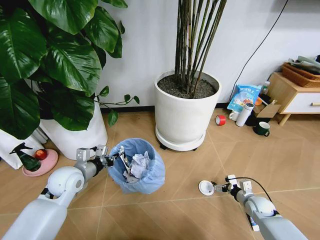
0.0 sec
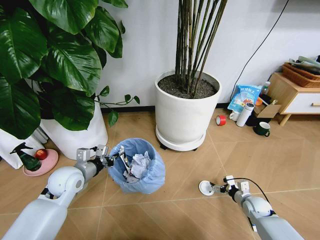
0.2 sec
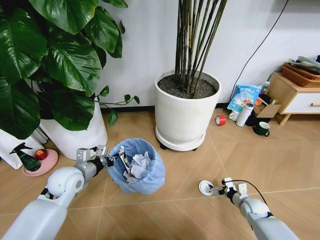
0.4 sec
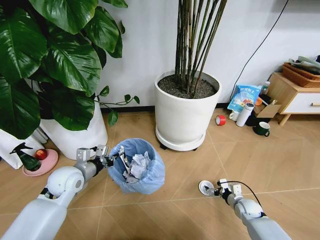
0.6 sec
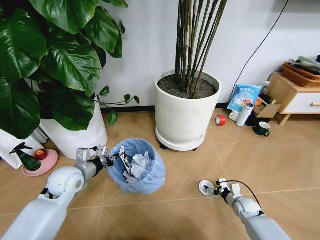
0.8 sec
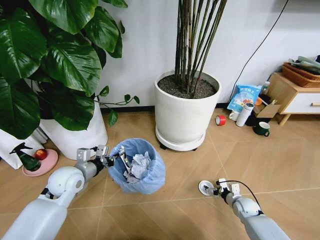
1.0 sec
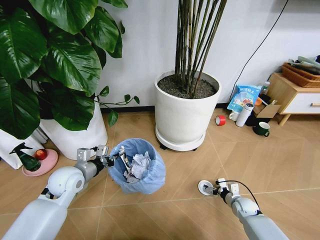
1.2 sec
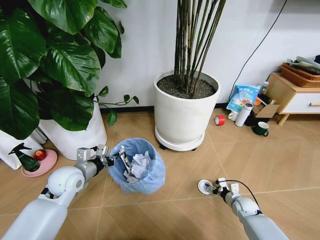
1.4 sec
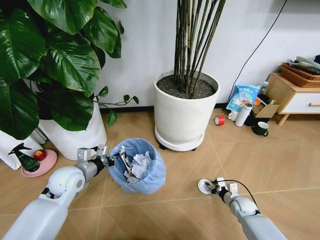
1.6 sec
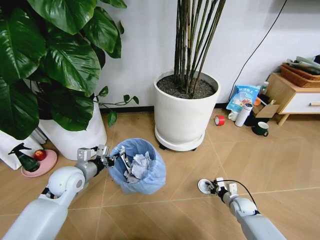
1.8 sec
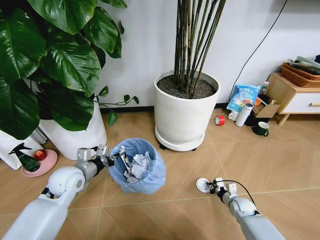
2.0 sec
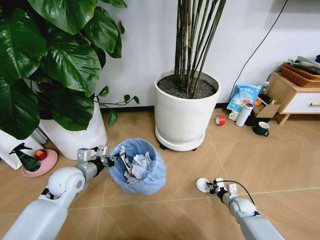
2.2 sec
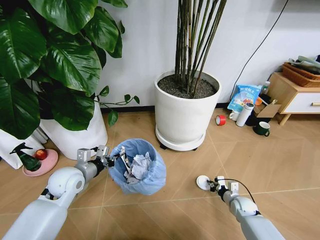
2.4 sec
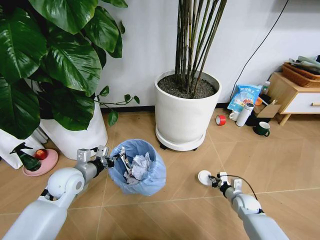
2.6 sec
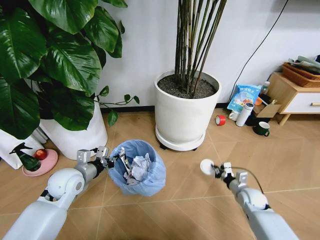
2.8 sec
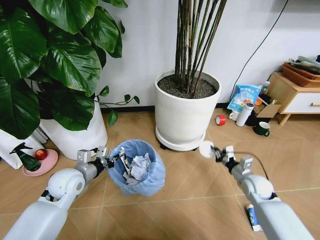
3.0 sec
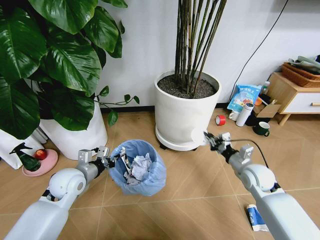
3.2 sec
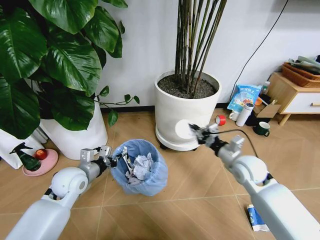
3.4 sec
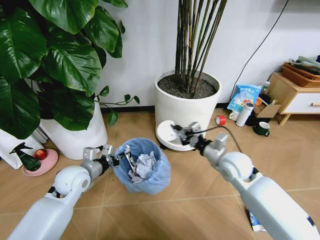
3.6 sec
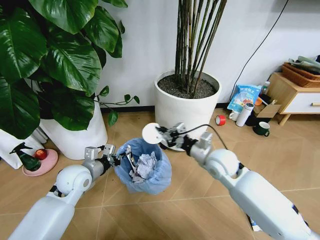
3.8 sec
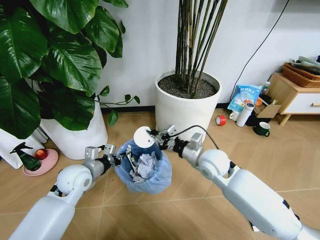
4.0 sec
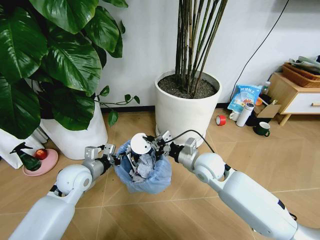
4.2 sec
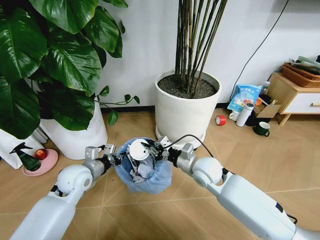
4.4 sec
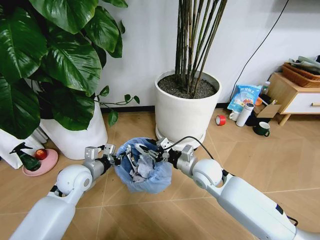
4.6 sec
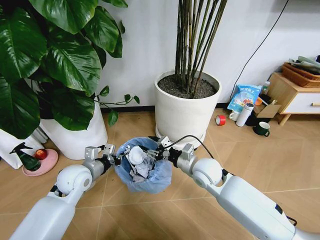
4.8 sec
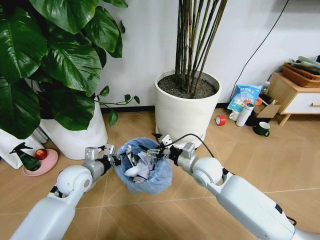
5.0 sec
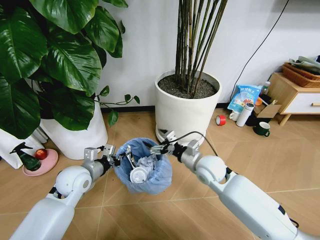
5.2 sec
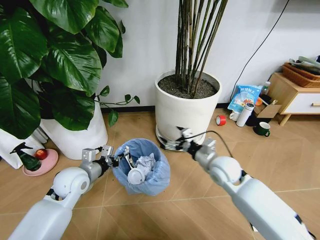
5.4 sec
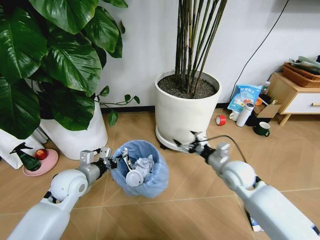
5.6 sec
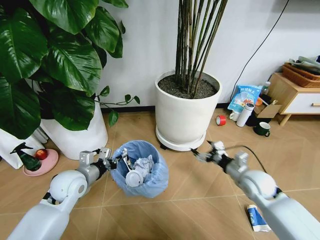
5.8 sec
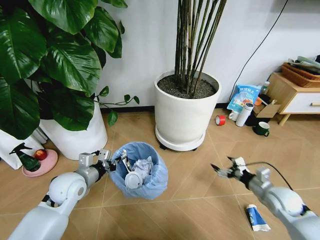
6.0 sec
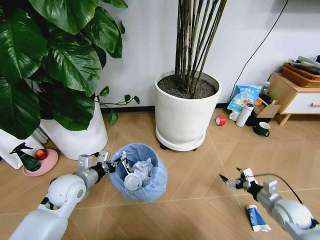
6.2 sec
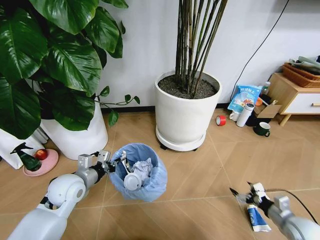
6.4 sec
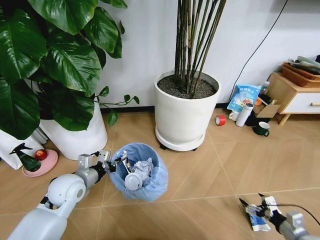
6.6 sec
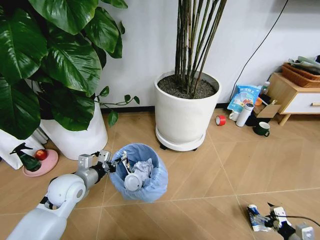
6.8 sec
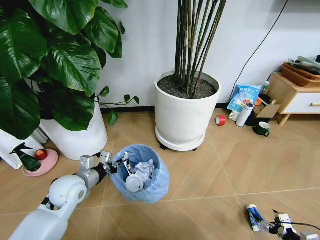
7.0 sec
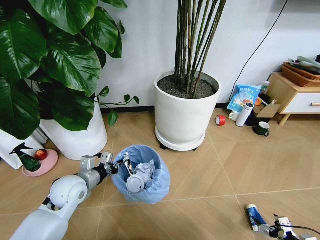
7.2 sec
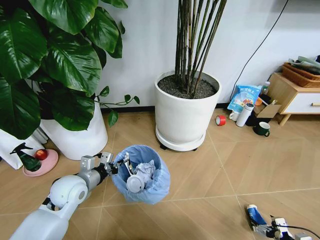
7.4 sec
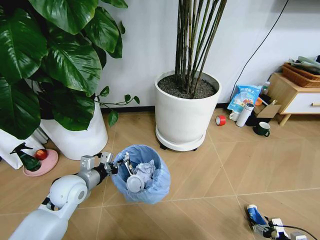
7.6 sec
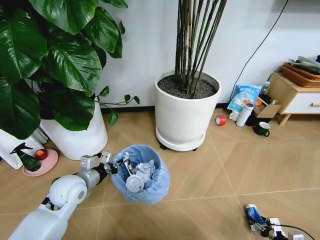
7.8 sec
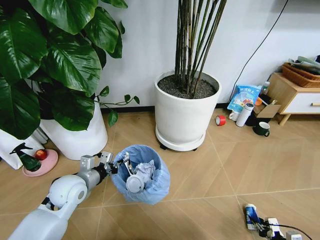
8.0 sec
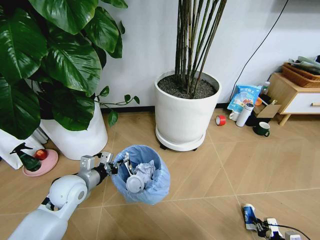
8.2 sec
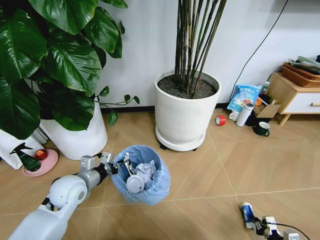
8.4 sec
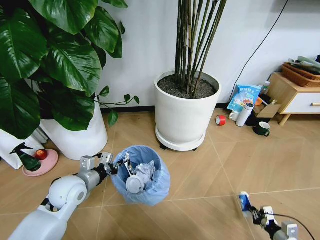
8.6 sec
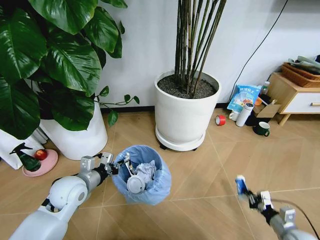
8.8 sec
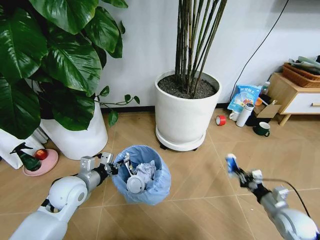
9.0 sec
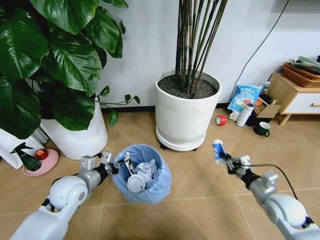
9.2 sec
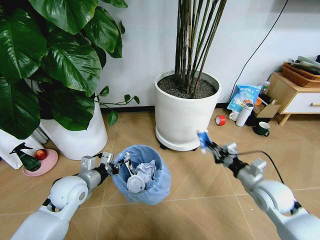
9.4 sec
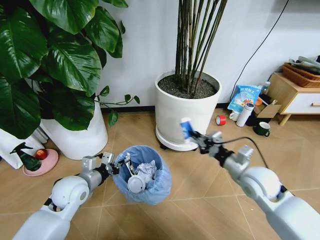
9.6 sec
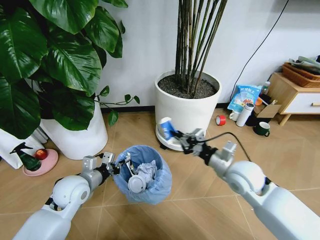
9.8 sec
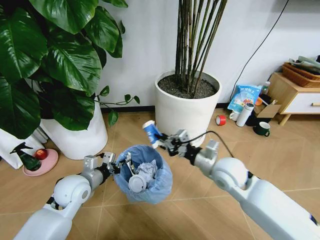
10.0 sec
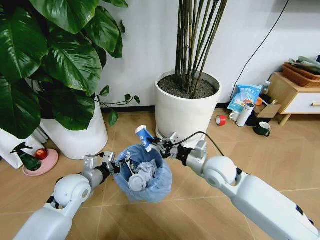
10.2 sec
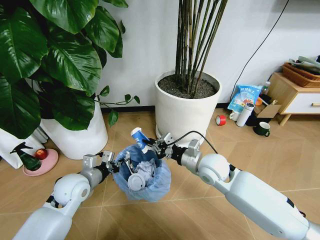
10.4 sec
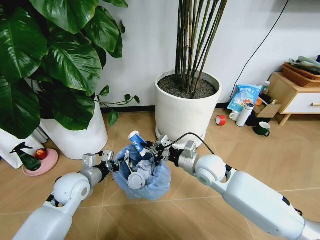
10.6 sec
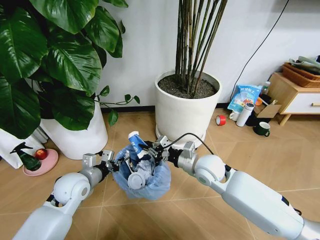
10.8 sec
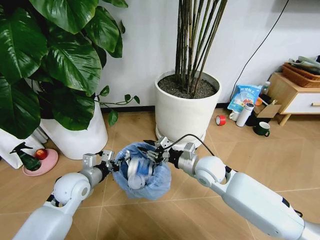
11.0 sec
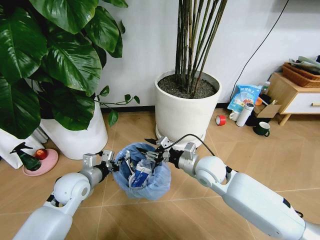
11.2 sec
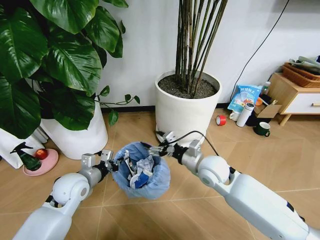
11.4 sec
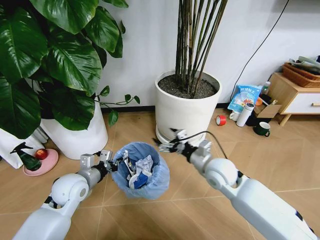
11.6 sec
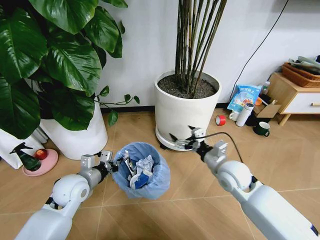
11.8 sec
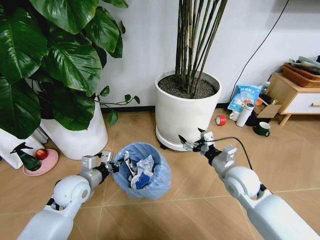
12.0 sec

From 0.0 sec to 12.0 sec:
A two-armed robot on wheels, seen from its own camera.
Task of the whole recording: Pick up the trash bin and place the garbage on the floor into it.
From 0.0 sec to 1.6 sec: The right gripper is displaced downward by roughly 5 cm, and closes.
From 1.6 sec to 3.0 sec: The right gripper goes some 15 cm upward, and closes its fingers.
From 3.0 sec to 4.4 sec: The right gripper moves to the left and upward, roughly 25 cm.
From 4.4 sec to 6.0 sec: The right gripper goes approximately 25 cm to the right, and opens up.
From 6.0 sec to 7.6 sec: The right gripper goes approximately 25 cm backward, downward and to the right.
From 7.6 sec to 9.0 sec: The right gripper moves forward, upward and to the left, roughly 20 cm, and closes its fingers.
From 9.0 sec to 10.4 sec: The right gripper heads to the left, forward and upward, covering approximately 35 cm.
From 10.4 sec to 12.0 sec: The right gripper is displaced to the right by about 10 cm, and opens up.

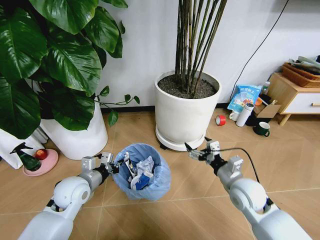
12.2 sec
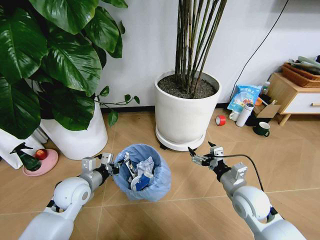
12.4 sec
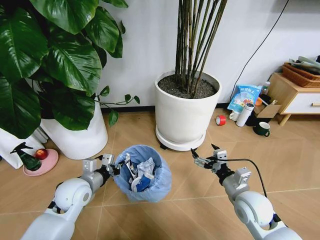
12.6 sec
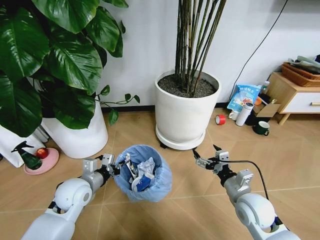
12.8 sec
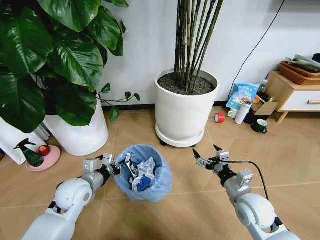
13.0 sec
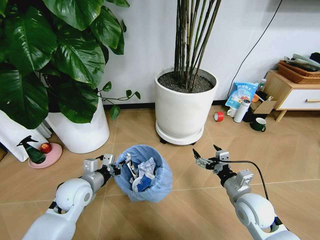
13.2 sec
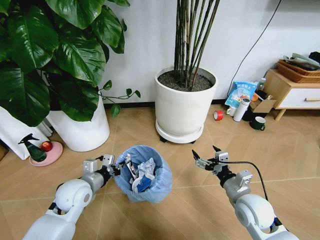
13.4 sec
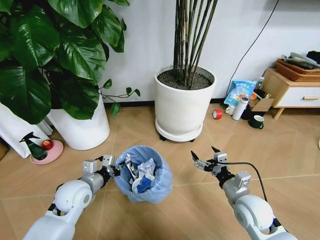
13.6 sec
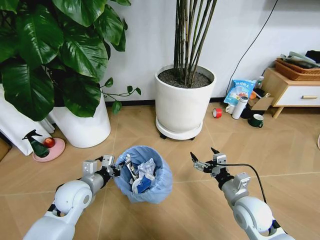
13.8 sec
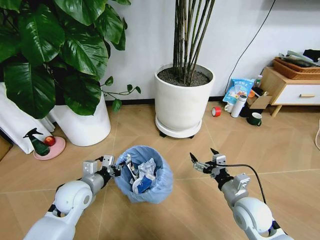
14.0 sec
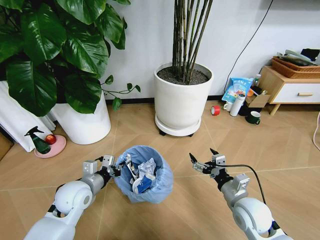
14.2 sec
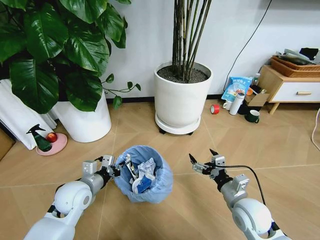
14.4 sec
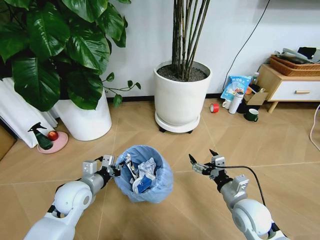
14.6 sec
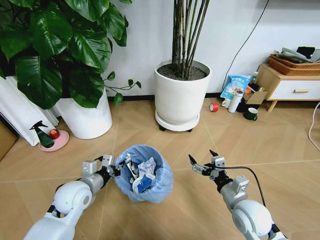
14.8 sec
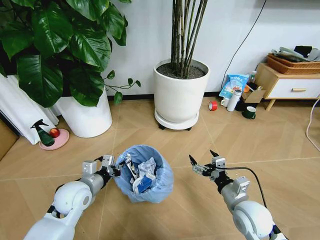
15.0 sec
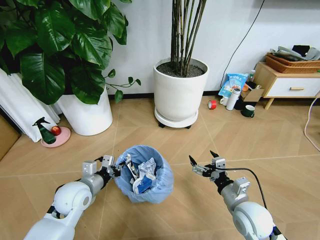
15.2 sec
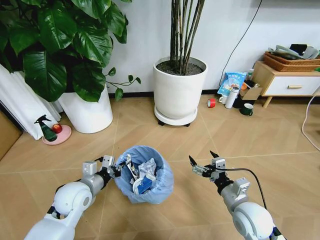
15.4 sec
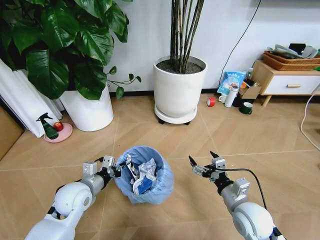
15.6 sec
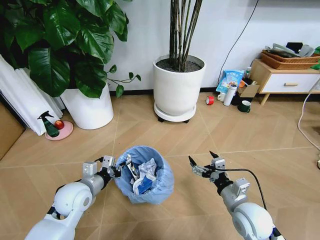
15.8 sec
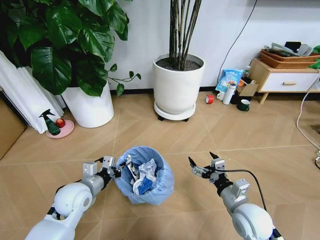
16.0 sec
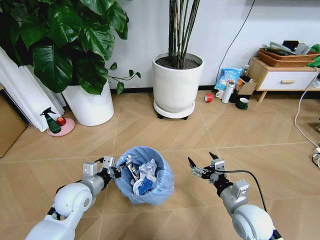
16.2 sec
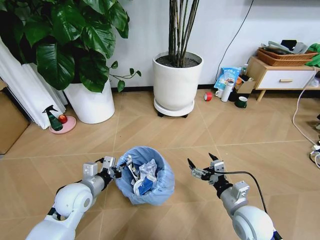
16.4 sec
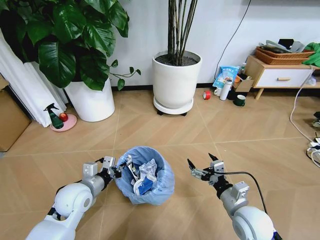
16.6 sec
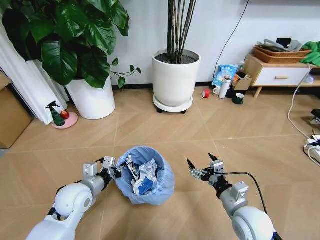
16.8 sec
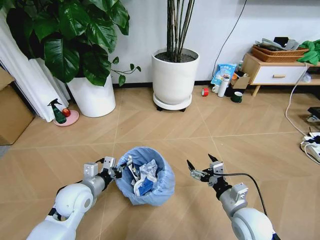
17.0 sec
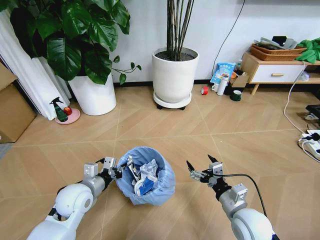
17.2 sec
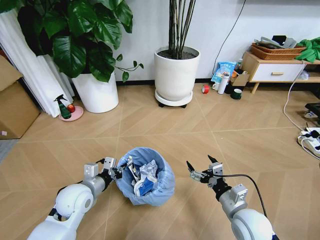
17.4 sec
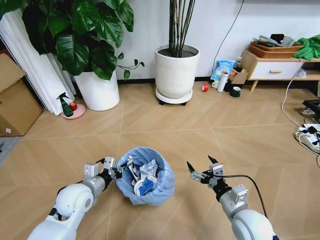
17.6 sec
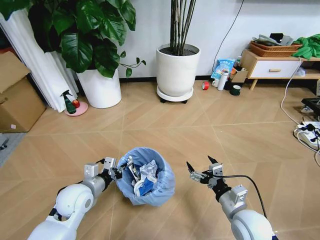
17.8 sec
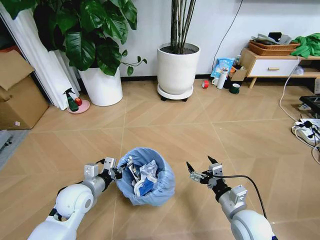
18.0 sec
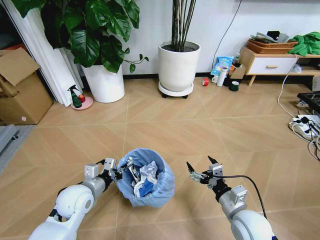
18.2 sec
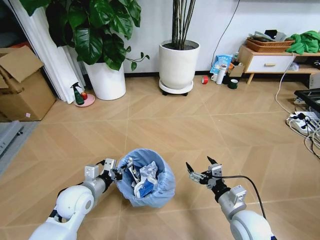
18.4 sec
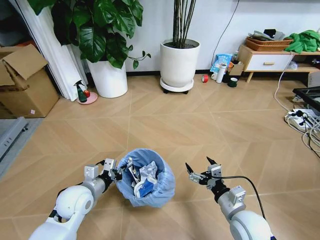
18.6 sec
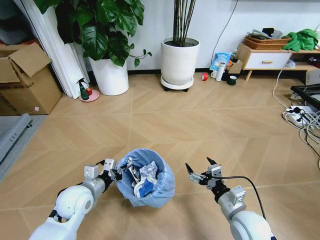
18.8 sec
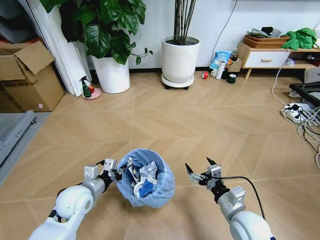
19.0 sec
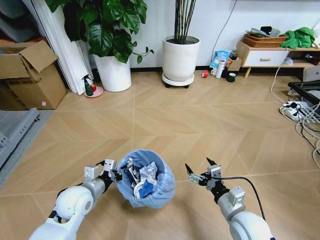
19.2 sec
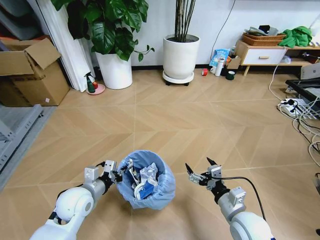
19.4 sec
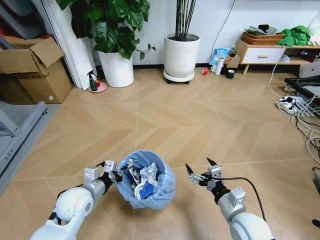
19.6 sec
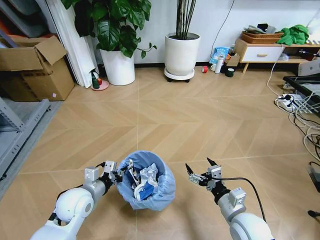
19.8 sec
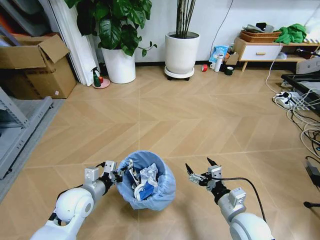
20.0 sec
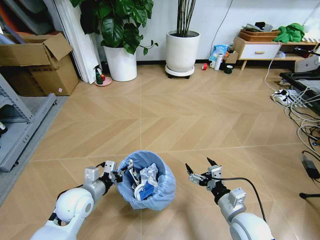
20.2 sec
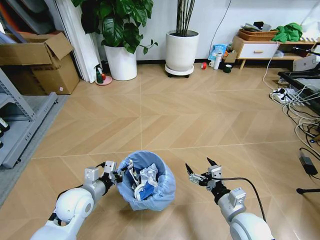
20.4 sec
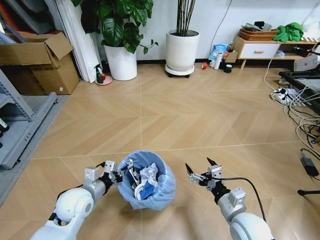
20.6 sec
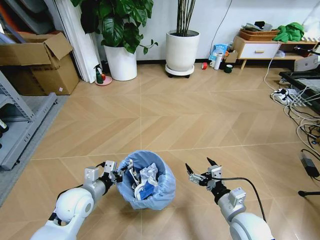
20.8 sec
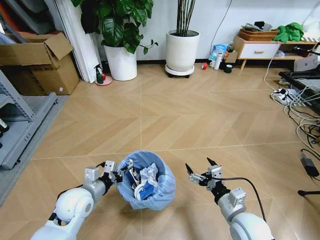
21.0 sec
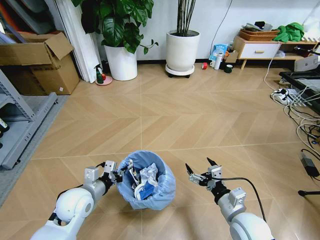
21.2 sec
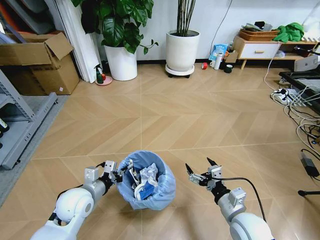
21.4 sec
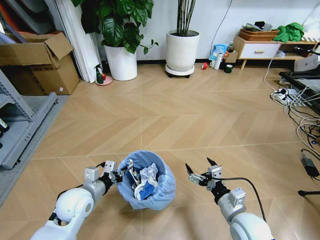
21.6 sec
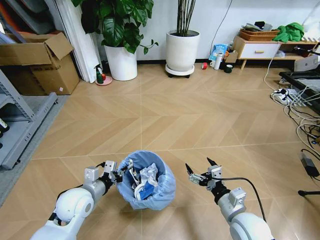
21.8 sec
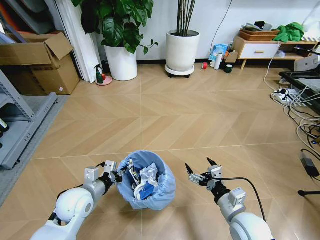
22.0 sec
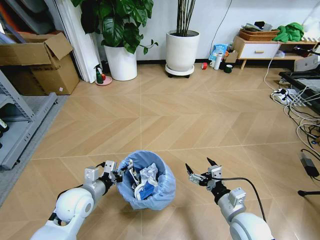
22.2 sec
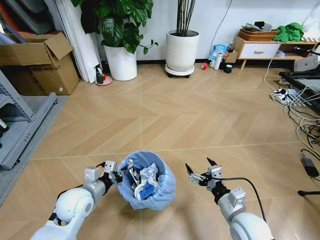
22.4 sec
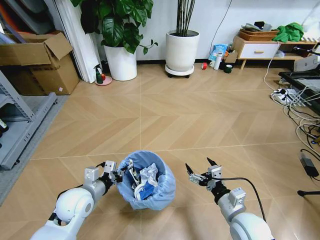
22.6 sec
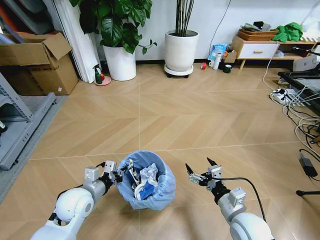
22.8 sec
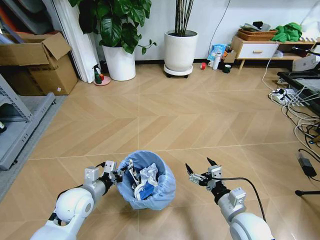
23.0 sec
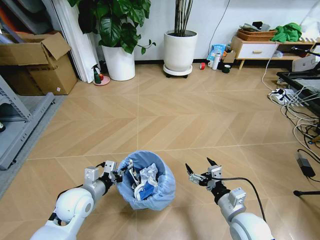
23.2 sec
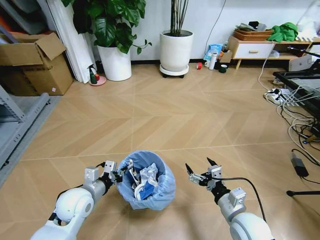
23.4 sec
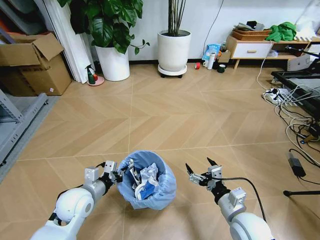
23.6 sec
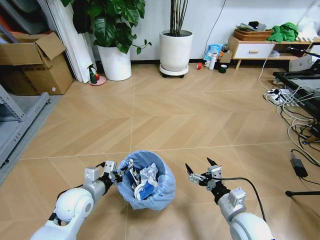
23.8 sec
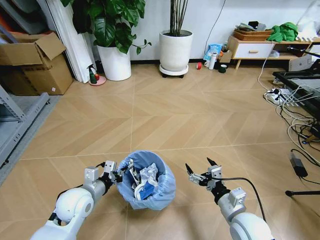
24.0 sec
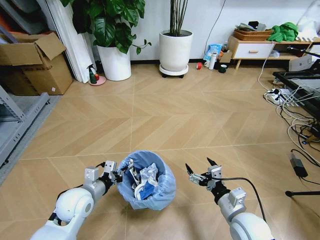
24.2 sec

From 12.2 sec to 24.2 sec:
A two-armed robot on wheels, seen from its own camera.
Task of the whole recording: Pick up the trash bin and place the garbage on the floor into it.
From 12.2 sec to 13.8 sec: The right gripper ends up about 5 cm from where it was.
From 21.2 sec to 22.6 sec: Both grippers stay about where they are.
